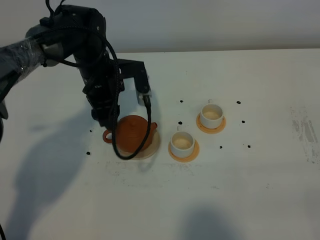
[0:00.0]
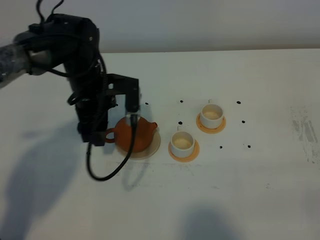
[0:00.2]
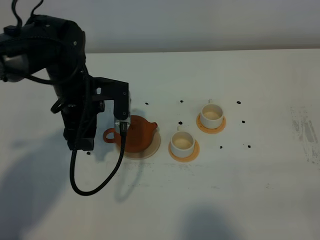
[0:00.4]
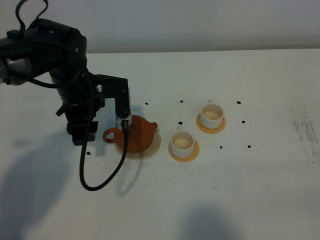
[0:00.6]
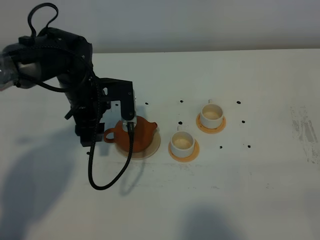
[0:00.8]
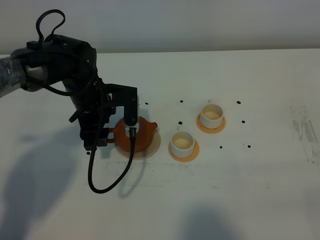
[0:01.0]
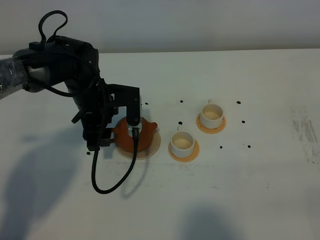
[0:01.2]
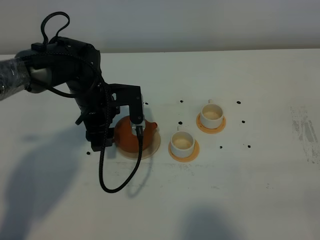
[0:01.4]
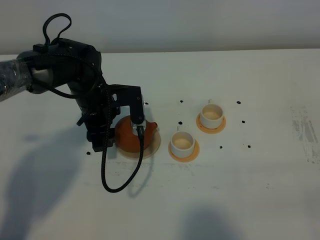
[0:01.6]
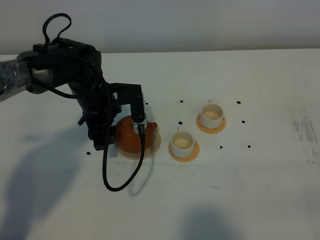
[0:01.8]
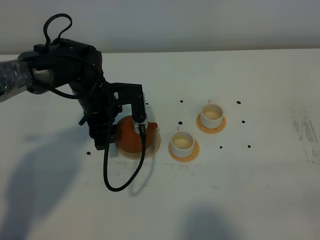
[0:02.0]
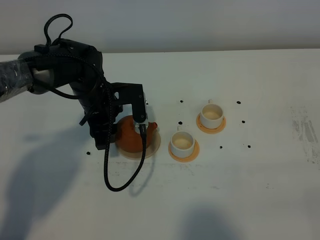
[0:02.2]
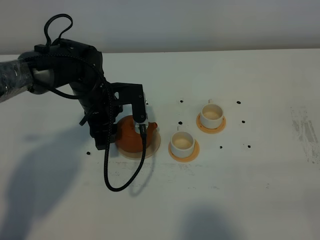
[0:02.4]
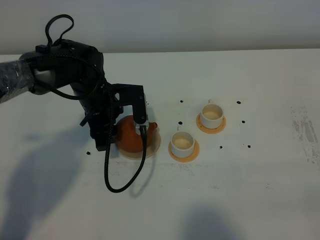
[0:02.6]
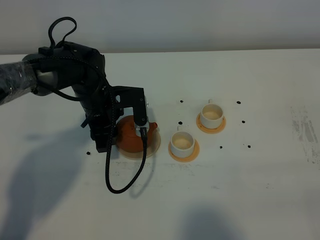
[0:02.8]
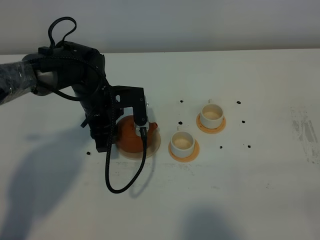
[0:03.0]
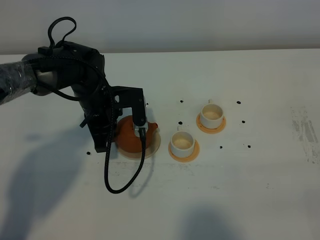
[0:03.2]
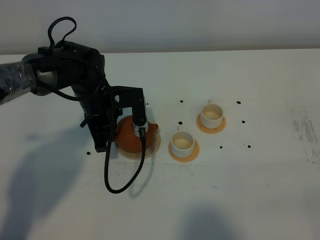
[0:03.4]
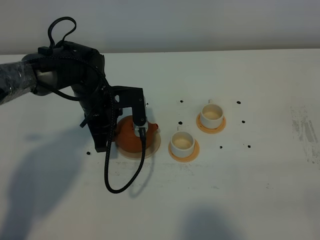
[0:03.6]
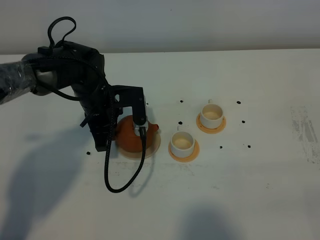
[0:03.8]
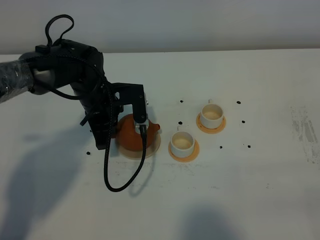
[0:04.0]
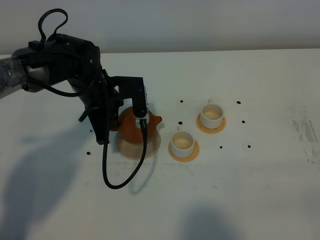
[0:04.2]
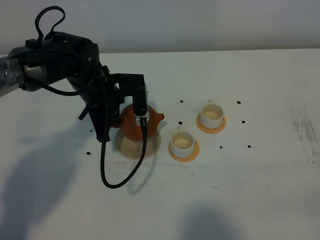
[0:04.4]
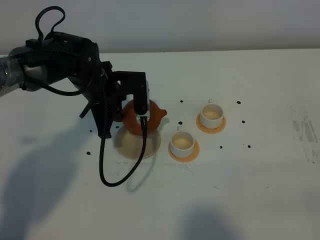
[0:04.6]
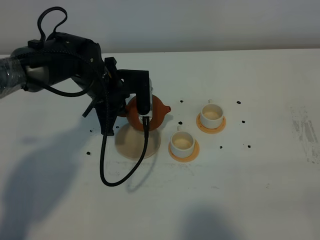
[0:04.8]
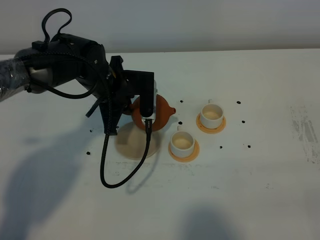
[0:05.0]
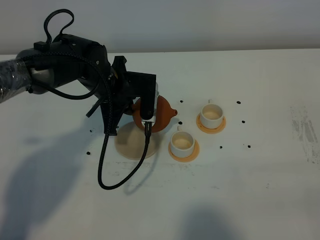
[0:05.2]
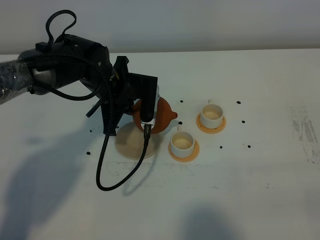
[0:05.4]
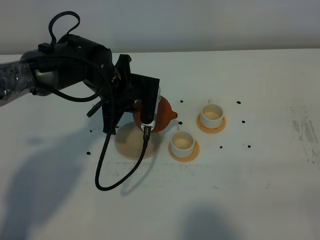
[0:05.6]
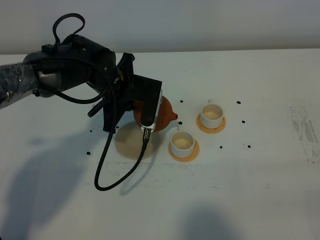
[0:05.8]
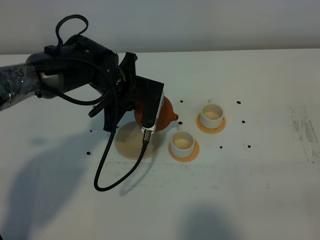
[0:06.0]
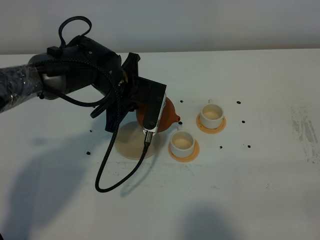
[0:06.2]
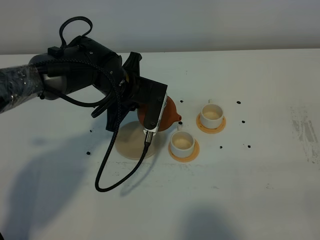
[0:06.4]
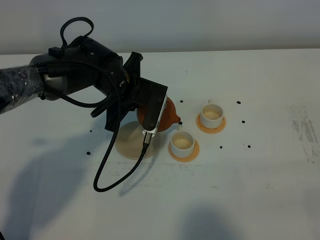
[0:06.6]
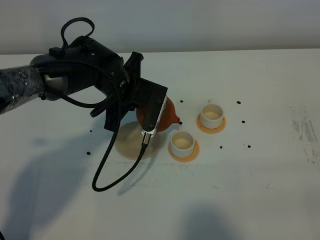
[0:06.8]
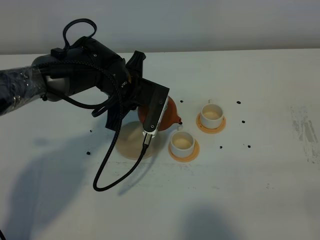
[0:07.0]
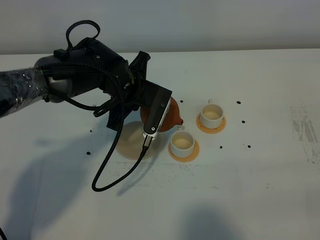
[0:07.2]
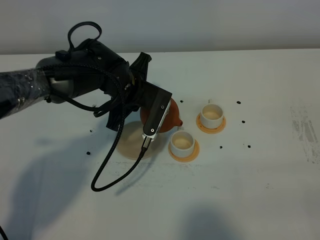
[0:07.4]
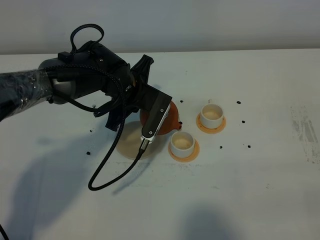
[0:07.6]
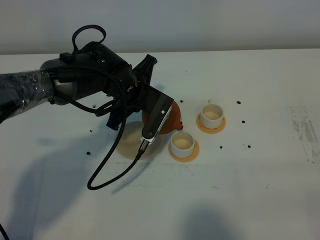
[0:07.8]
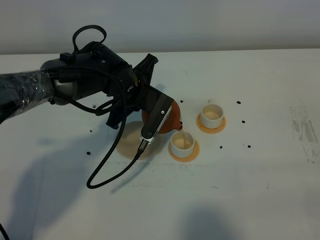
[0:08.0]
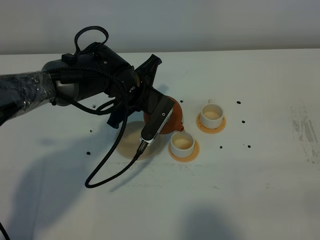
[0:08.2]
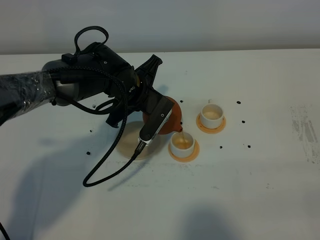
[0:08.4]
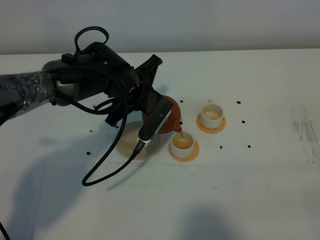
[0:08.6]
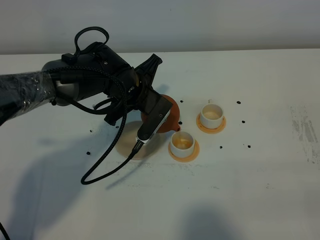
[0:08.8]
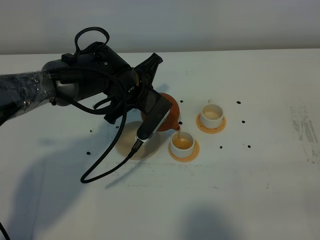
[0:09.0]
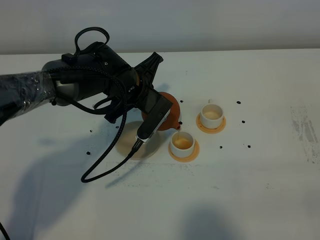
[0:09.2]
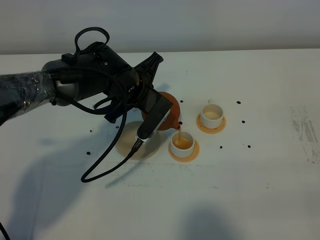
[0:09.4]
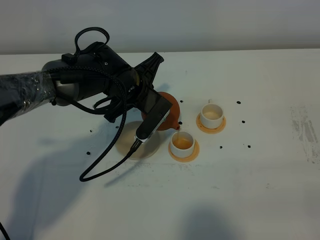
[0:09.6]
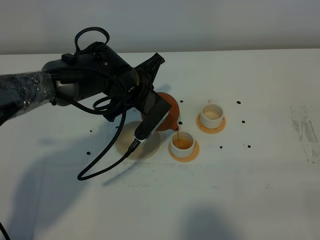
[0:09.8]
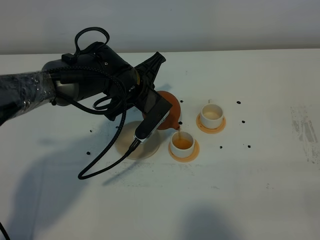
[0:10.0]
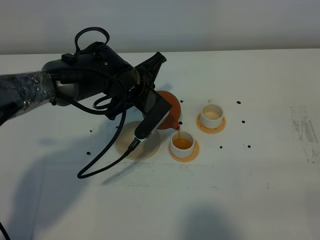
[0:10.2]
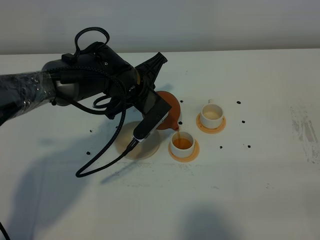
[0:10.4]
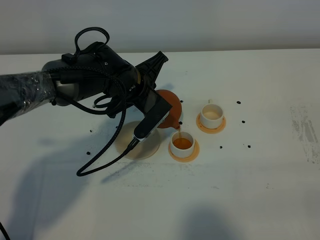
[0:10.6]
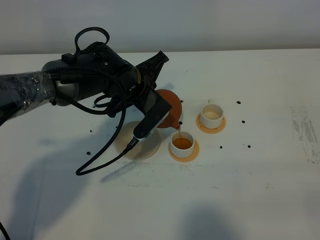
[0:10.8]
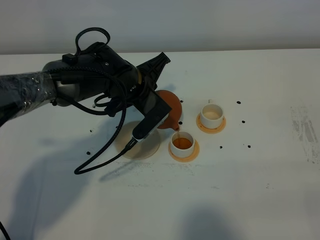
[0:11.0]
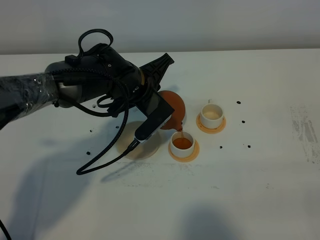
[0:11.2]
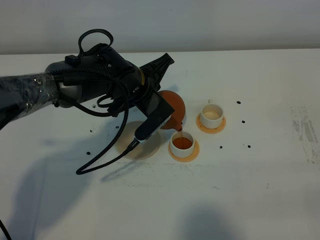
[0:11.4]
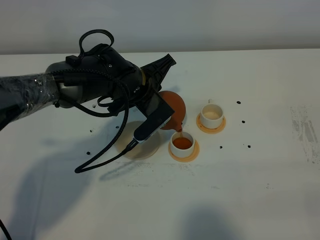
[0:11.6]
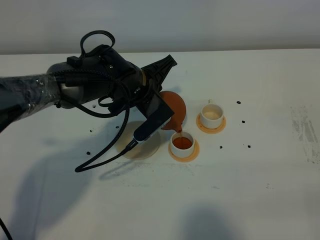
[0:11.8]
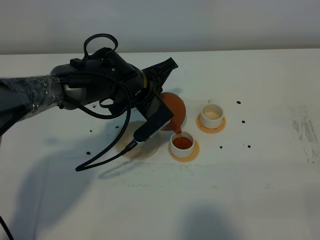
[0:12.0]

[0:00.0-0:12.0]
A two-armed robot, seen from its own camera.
Task of the whole recording: grasp the brown teapot and pour the tea into the two white teacups one by one, put the brown teapot back in its original place.
Step, 0:00.0 to 0:04.0: Pick up the teapot with the left gripper.
0:01.6 to 0:03.0: Neither gripper changes place.
0:03.0 to 0:04.4: The left gripper closes up.
0:06.0 to 0:07.6: The grippers stay close to where they were, moving slightly.
0:07.6 to 0:10.4: The grippers stay close to where they were, moving slightly.
0:10.4 to 0:12.0: The grippers move only a little.

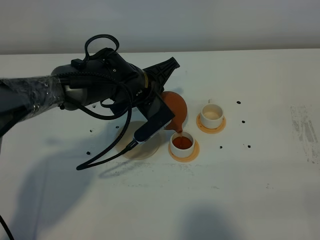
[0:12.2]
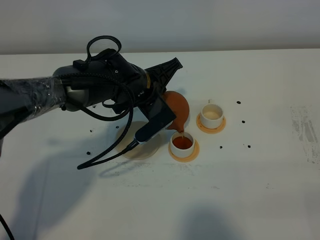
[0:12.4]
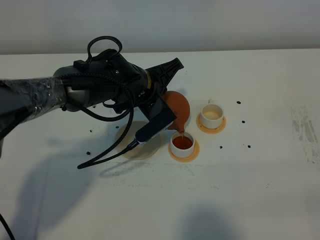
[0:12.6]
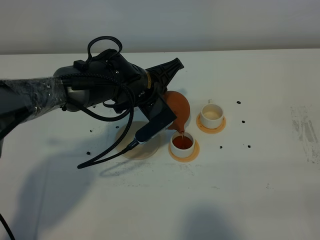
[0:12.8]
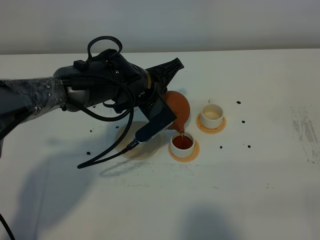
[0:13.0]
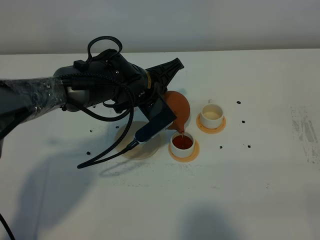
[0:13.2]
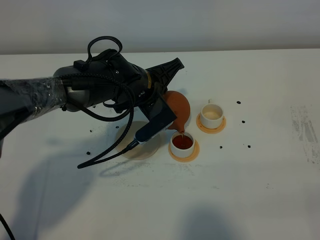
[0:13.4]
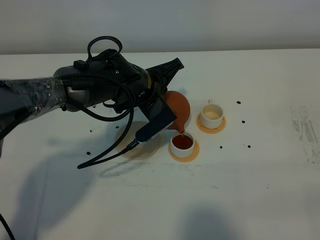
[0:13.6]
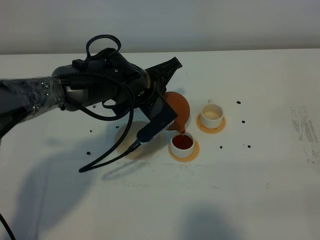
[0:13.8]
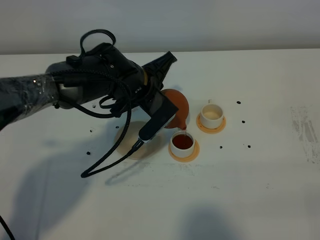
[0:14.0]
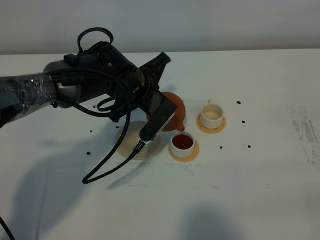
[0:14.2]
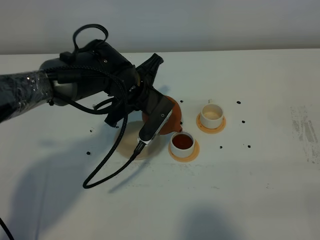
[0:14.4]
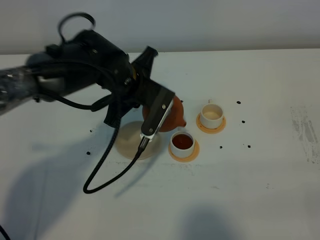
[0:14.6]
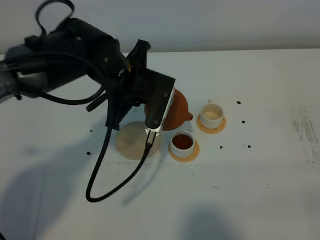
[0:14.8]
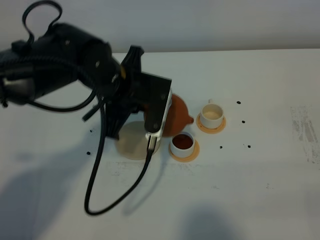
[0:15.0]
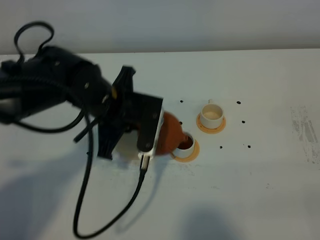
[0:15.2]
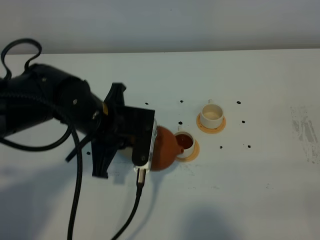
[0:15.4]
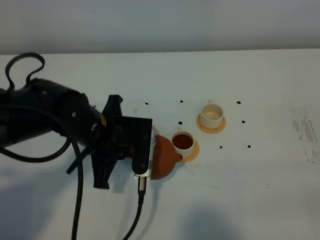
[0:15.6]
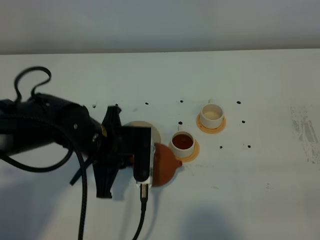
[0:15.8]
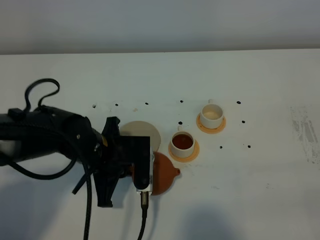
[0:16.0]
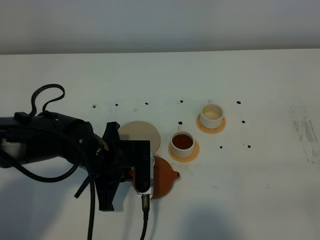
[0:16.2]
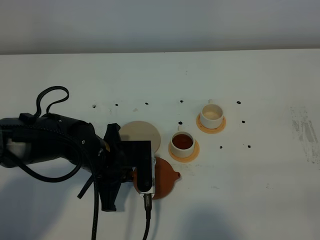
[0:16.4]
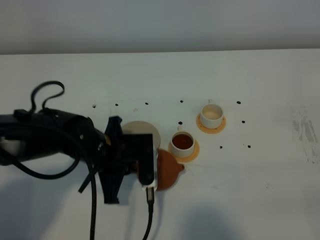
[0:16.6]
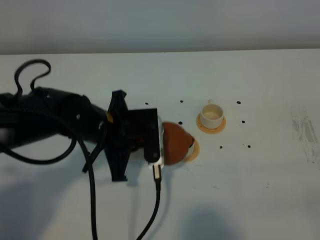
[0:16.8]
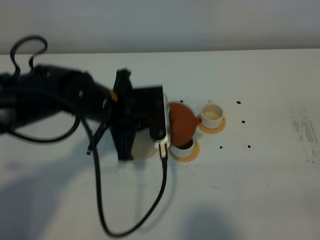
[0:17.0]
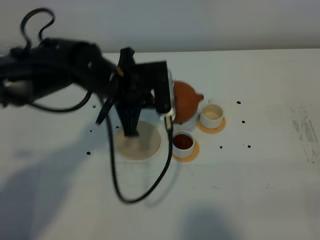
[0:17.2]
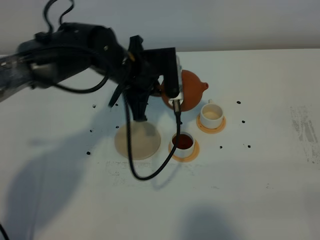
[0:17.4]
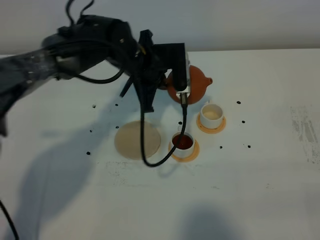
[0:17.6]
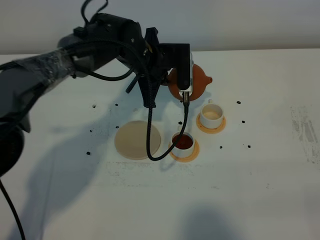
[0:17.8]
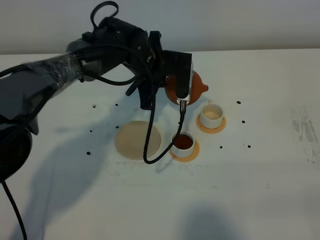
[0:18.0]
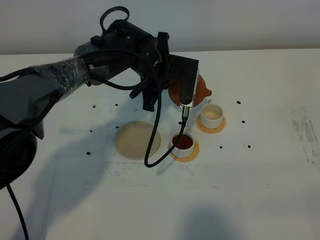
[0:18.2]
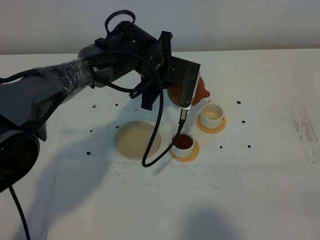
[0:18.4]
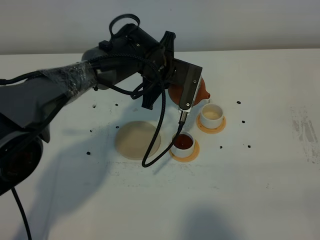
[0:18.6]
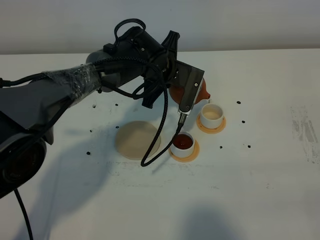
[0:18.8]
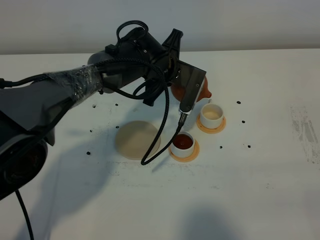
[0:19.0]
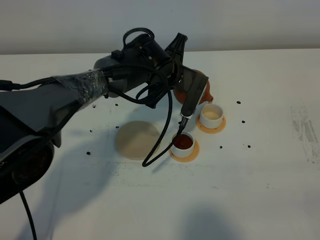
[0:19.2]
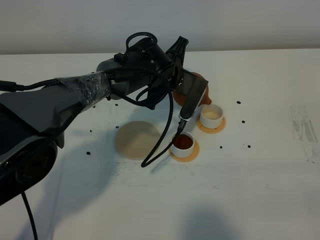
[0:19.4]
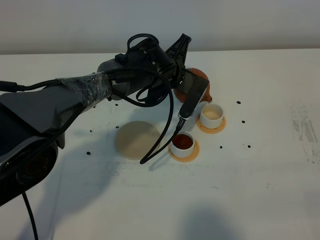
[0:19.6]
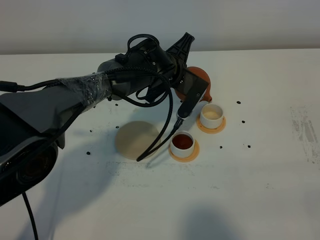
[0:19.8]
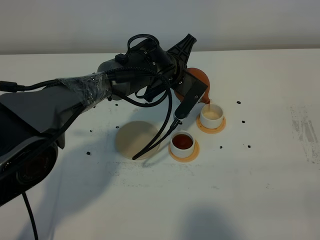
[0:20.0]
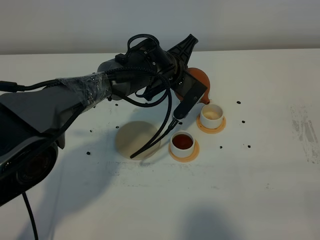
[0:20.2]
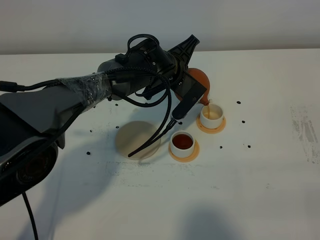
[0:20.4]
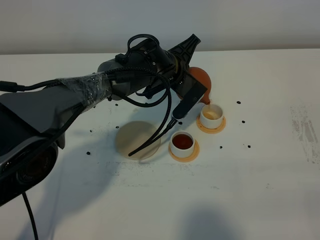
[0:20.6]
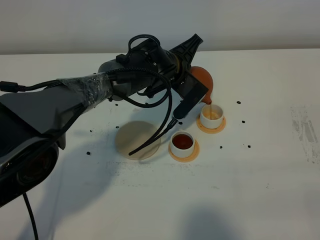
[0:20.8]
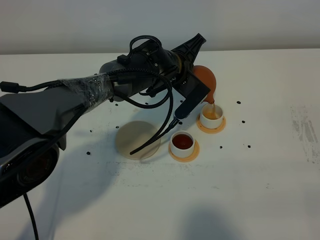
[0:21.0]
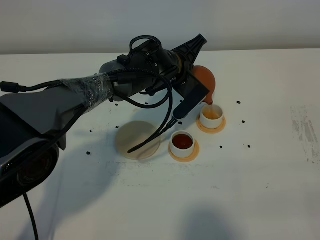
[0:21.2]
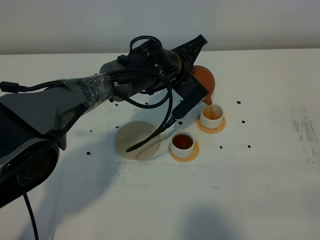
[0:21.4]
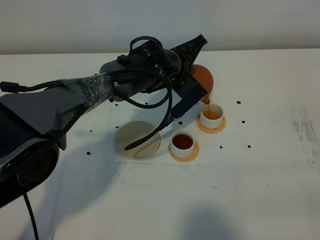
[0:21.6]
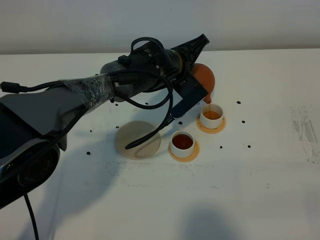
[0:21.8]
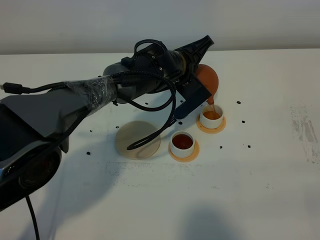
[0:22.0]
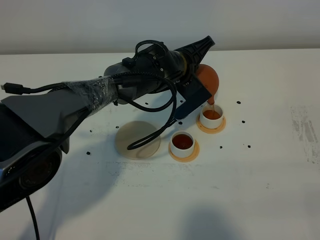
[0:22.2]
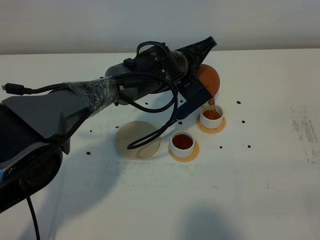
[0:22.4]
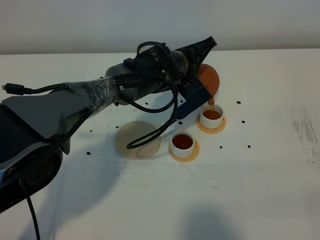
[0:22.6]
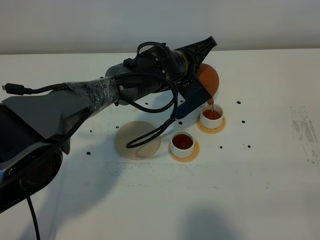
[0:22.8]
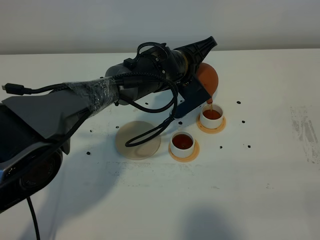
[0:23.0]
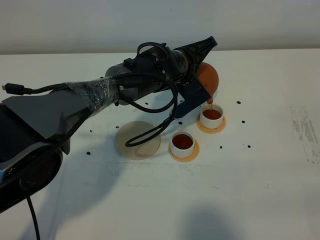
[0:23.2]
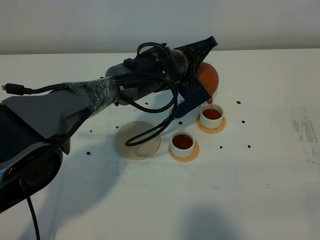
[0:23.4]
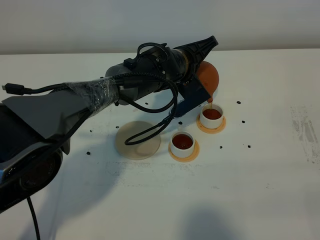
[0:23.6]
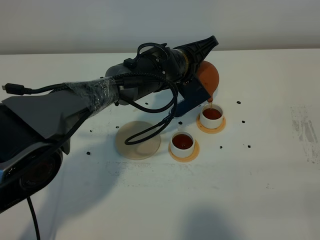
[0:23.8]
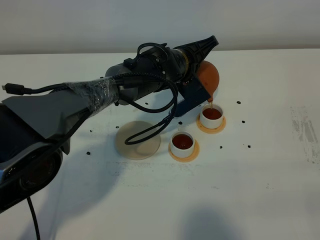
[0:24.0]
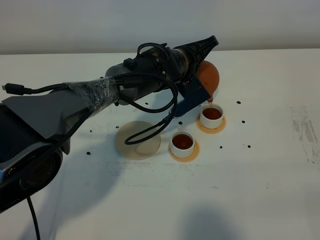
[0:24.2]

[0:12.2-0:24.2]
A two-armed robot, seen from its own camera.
Task of the whole recording: grasp the brown teapot and pour the tea into the two white teacups one by one, put the brown teapot back in its original place.
Step, 0:12.2 to 0:14.2: Pour tea into the teacup with the left gripper.
0:12.2 to 0:13.8: The two grippers keep their place.
0:13.8 to 0:15.2: The left gripper shifts roughly 10 cm backward and to the left.
0:15.2 to 0:16.6: The left gripper is displaced downward by about 5 cm.
0:16.6 to 0:18.2: The left gripper goes approximately 20 cm forward and to the right.
0:19.8 to 0:21.2: The grippers stay close to where they were, moving slightly.
0:21.2 to 0:22.6: The grippers move only a little.
0:22.6 to 0:24.2: Both grippers stay about where they are.
